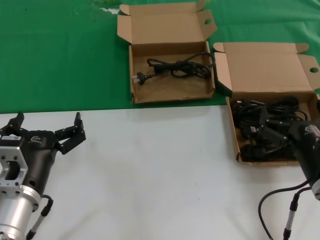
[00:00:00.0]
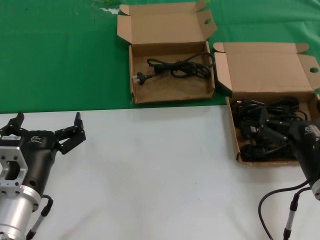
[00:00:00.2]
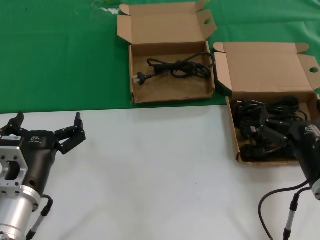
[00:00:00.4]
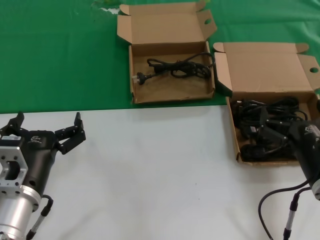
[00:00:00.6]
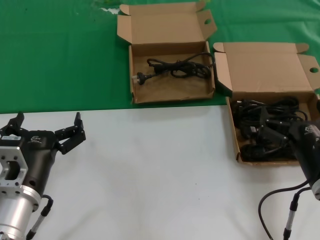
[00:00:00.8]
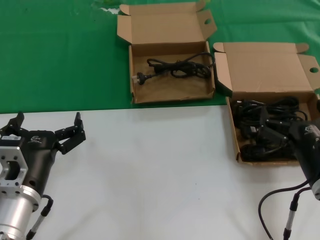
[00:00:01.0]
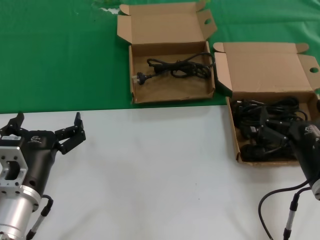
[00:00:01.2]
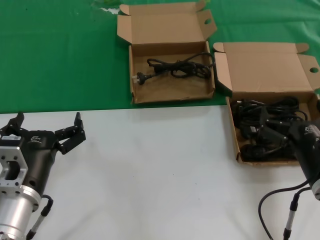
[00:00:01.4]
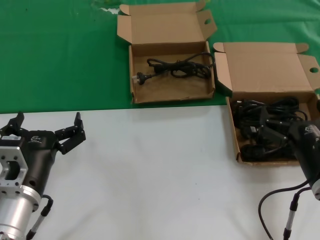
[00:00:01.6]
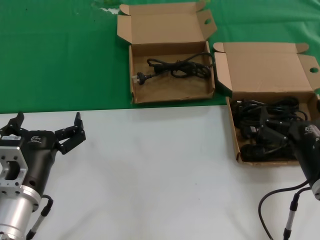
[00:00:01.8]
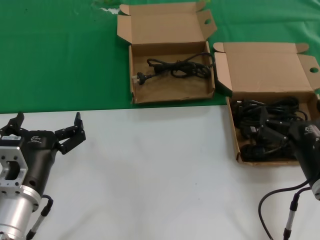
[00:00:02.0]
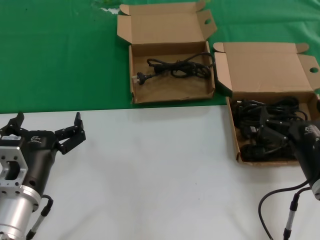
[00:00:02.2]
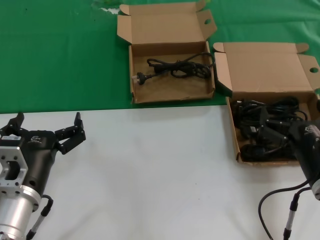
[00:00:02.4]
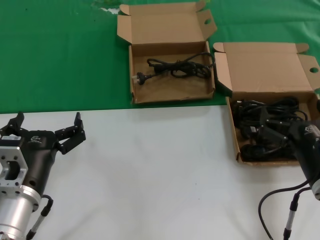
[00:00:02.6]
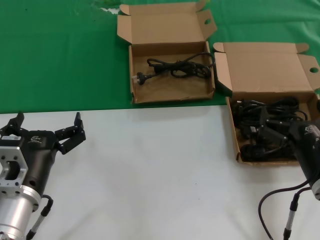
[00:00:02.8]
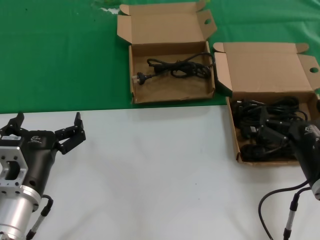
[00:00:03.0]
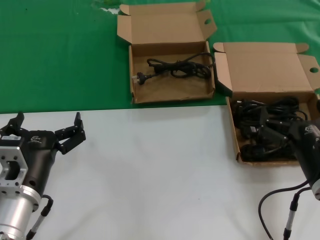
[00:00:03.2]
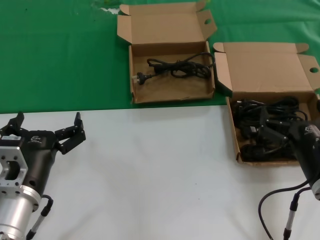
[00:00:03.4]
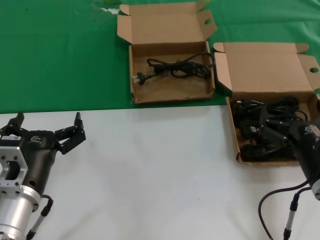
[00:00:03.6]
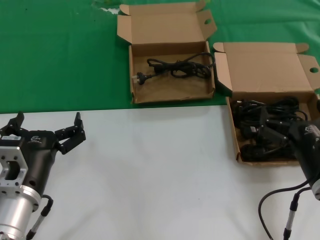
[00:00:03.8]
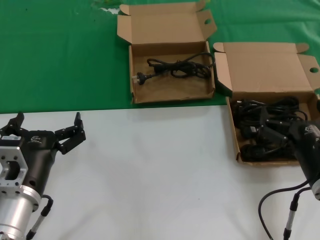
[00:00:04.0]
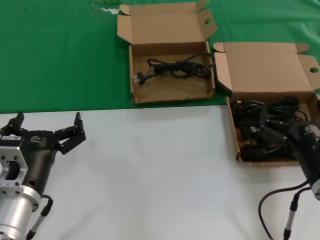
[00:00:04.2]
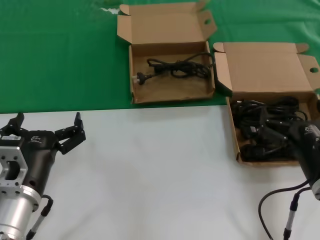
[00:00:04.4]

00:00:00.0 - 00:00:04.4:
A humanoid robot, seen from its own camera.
Task of the whole recording: take the parts from the box containing them and put them into an empty box.
00:00:00.0 - 00:00:04.4: Both hands stay about where they are.

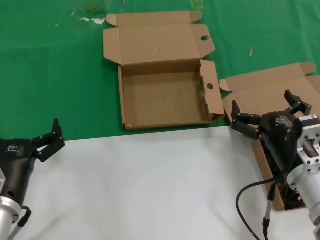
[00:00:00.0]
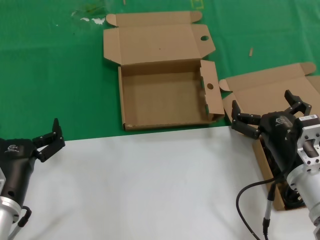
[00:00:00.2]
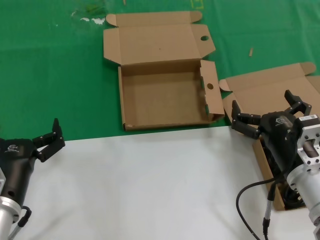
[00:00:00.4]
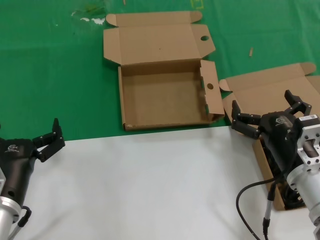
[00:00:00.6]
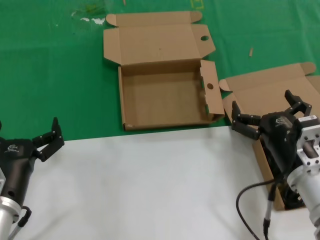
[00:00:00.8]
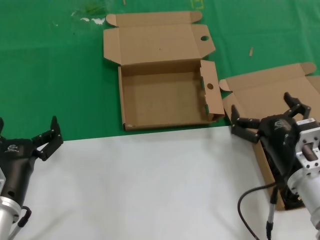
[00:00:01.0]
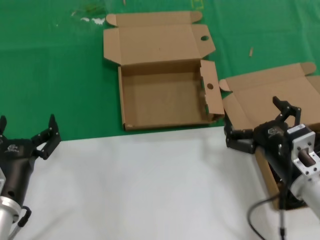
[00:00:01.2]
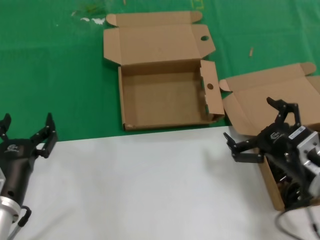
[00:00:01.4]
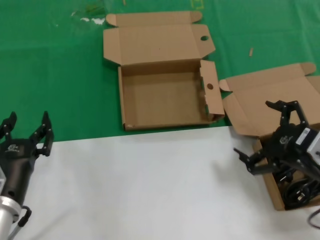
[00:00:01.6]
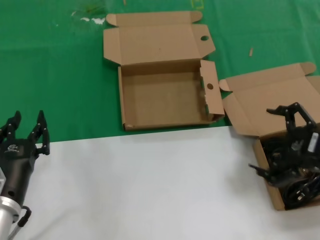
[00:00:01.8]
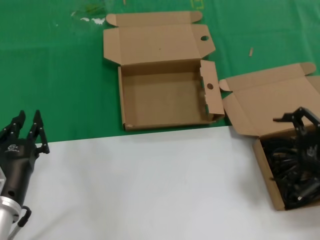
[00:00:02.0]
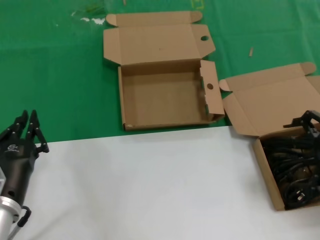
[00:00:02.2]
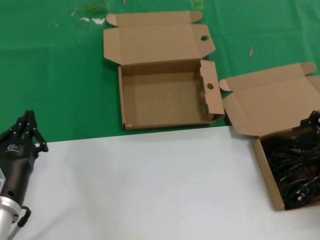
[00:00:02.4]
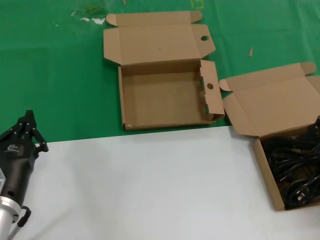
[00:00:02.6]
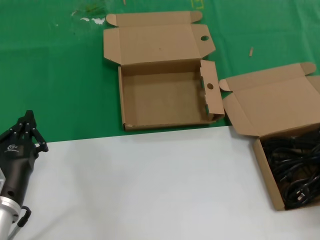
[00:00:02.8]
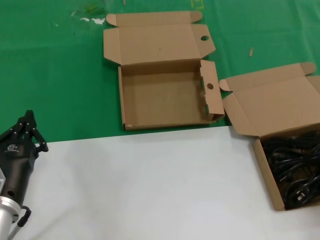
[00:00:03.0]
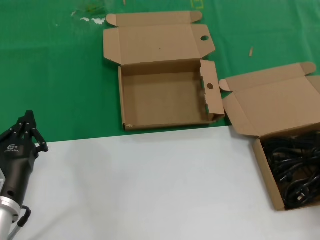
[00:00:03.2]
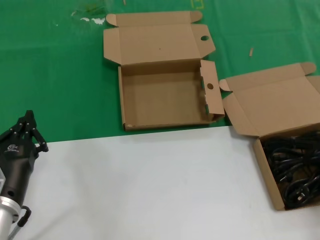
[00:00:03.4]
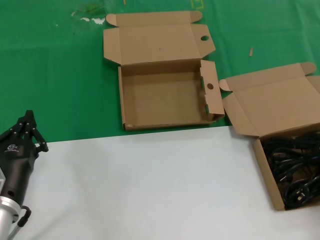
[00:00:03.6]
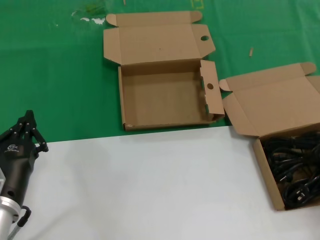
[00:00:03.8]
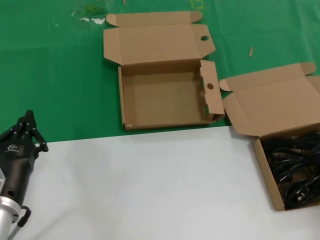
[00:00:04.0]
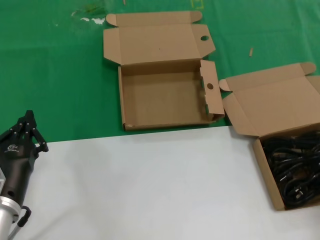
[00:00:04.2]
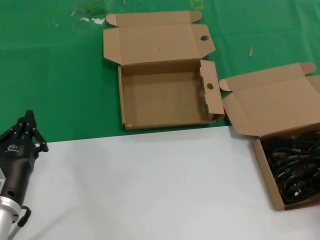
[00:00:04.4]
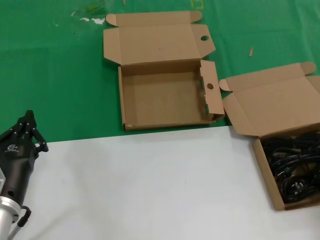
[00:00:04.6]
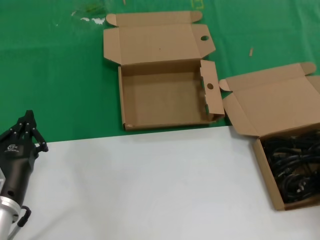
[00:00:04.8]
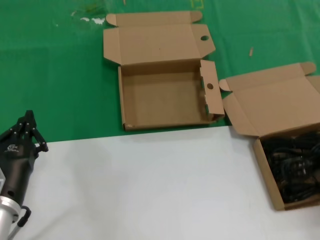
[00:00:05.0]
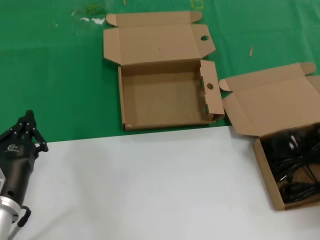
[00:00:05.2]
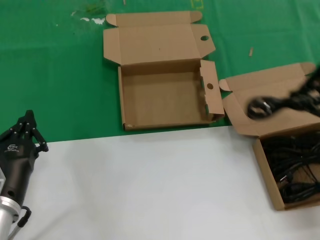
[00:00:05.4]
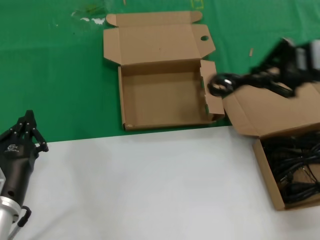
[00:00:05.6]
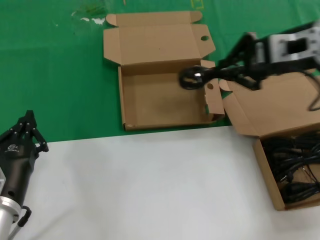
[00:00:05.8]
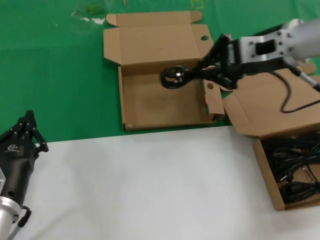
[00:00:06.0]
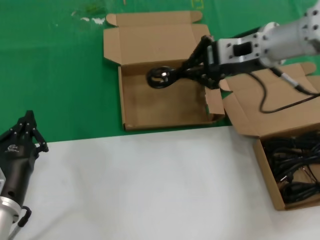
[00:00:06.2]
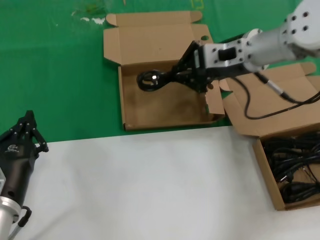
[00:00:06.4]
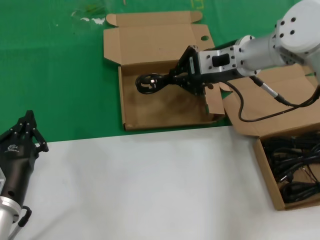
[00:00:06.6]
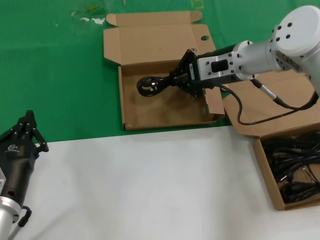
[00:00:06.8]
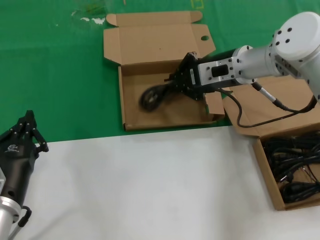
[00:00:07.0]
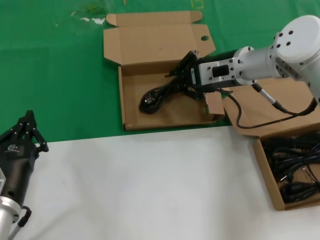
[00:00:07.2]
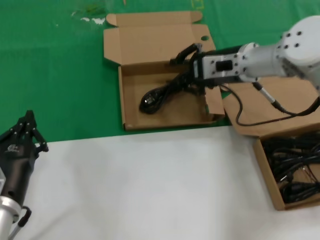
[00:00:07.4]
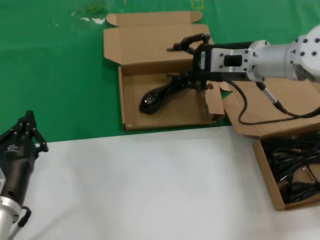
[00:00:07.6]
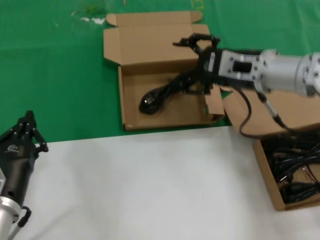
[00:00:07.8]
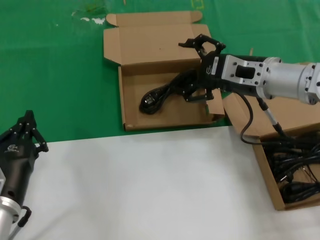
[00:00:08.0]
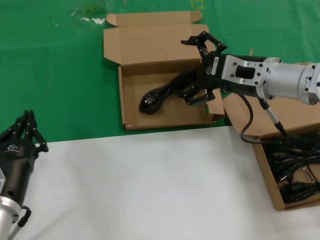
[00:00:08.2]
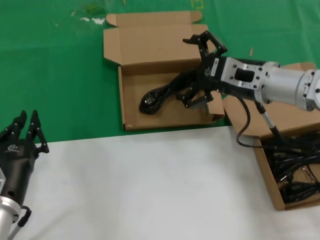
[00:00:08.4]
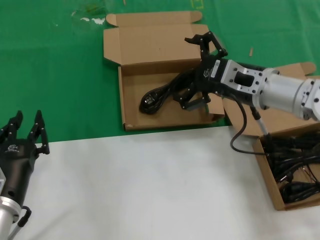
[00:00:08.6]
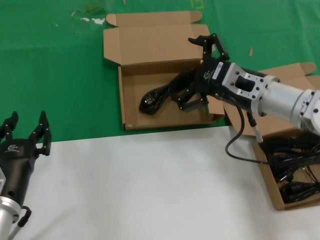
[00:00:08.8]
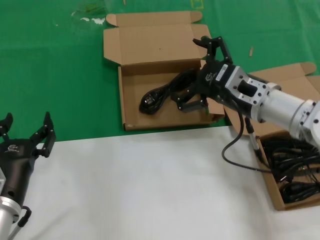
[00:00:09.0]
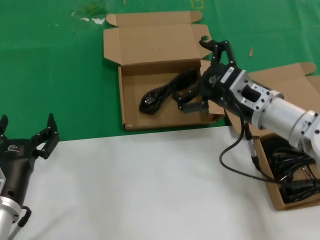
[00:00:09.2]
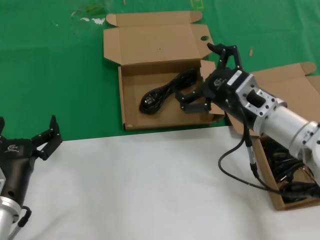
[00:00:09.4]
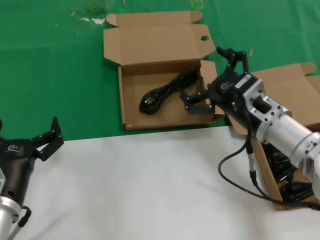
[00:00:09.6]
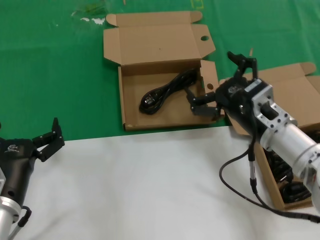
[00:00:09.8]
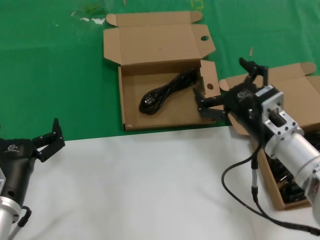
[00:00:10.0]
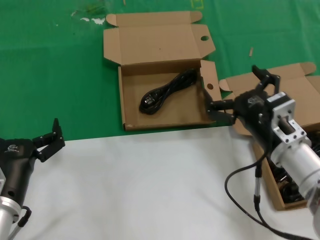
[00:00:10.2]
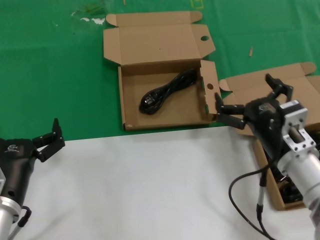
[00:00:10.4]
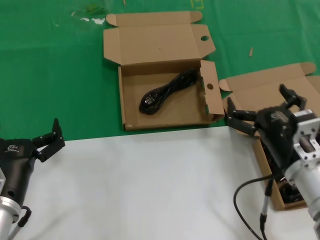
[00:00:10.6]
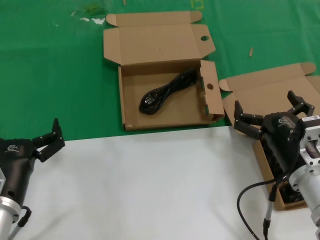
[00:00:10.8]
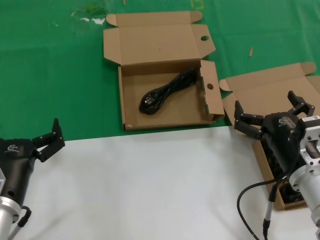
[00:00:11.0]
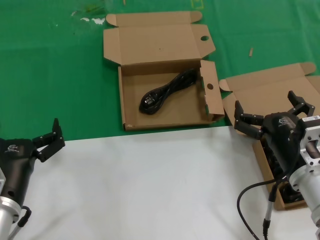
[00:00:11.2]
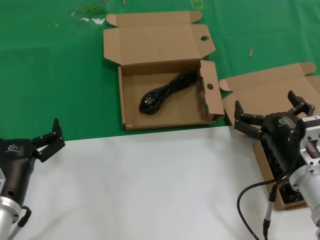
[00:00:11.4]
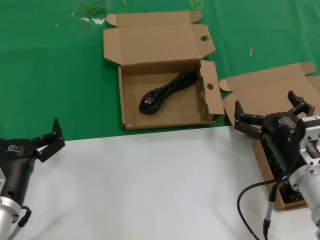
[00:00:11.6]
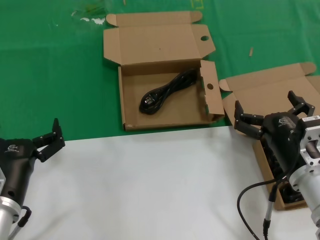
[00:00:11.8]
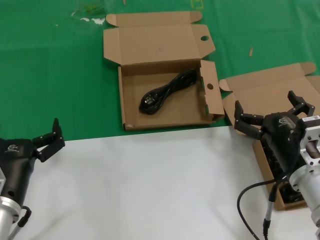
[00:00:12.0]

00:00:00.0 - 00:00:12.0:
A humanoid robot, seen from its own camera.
Task of the whole recording: take the parts from the box containing them and put them into an empty box.
Step, 00:00:00.0 - 00:00:04.4: Grasp the data cable.
Step, 00:00:04.6 - 00:00:07.4: Place the data cable in the another box.
00:00:00.0 - 00:00:01.6: The right hand travels to the right and upward by approximately 10 cm.
00:00:01.6 - 00:00:03.0: The right hand moves to the right and upward, roughly 15 cm.
00:00:04.4 - 00:00:06.0: The right hand goes about 25 cm to the left, upward and forward.
00:00:06.0 - 00:00:07.6: The right hand shifts about 5 cm downward.
00:00:07.6 - 00:00:09.0: The right hand is displaced backward and downward by approximately 10 cm.
00:00:09.0 - 00:00:10.4: The right hand shifts some 15 cm backward and downward.
00:00:10.4 - 00:00:12.0: The hands make only small movements.

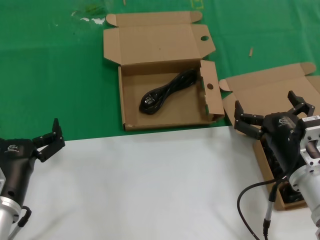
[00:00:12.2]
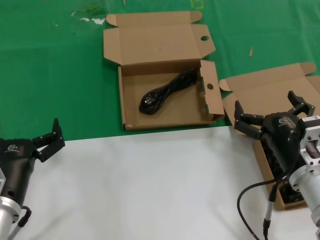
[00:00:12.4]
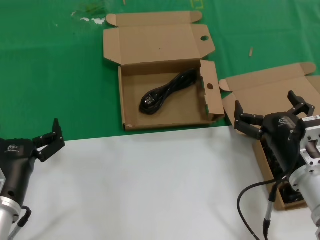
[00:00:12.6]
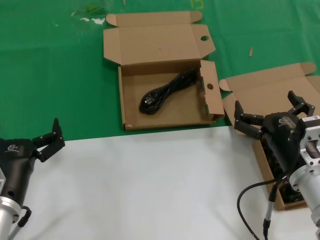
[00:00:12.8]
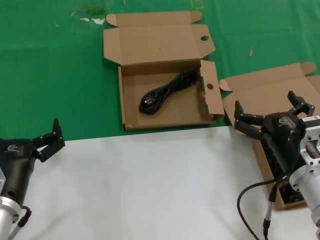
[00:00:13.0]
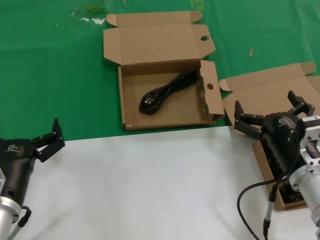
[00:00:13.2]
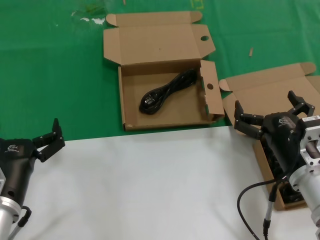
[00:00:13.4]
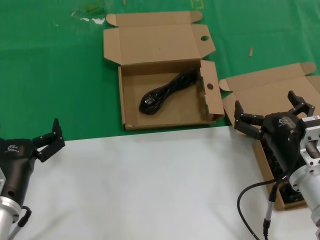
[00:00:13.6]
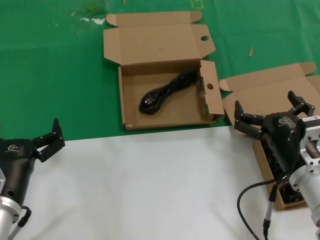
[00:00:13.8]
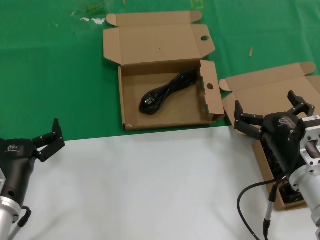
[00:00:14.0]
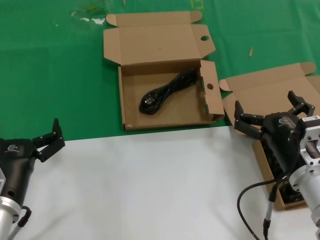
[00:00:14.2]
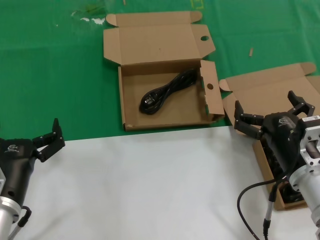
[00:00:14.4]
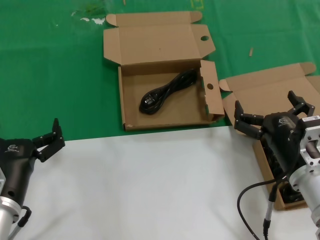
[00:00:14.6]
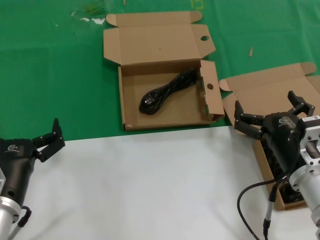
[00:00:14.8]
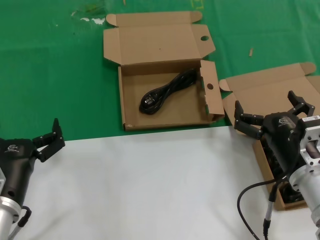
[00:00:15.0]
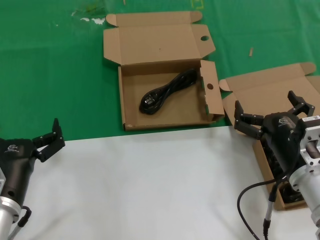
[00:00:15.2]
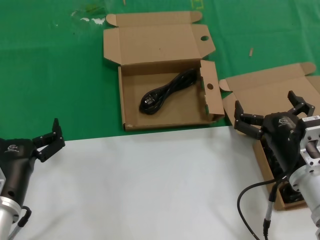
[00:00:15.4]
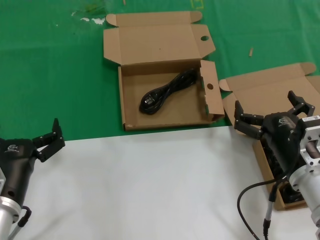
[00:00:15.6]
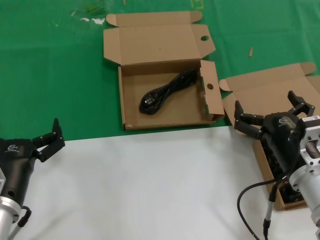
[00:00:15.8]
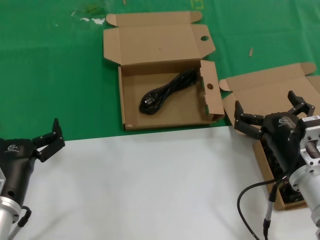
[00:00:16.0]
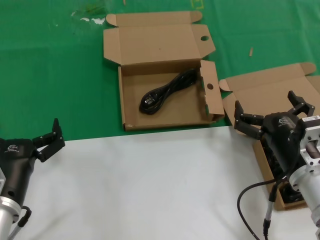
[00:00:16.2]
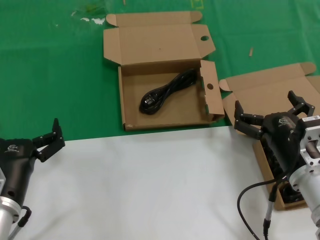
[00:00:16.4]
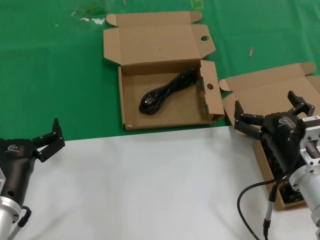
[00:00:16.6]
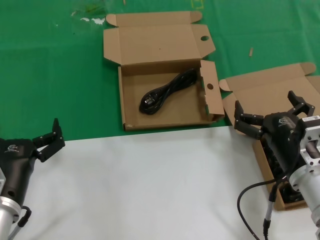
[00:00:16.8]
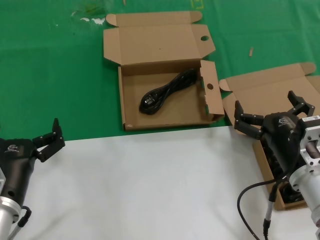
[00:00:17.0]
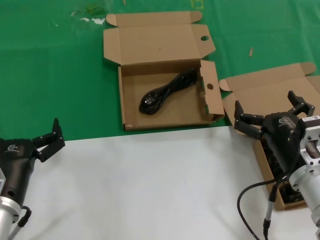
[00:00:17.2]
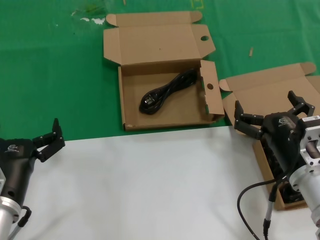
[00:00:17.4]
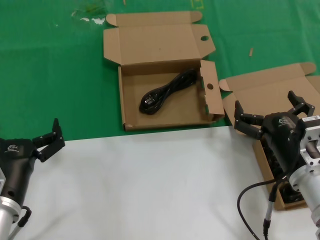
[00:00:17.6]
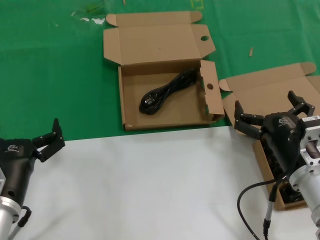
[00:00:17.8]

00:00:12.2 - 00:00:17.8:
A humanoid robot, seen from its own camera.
Task of the whole recording: take the parts from the box containing them and put them into an empty box.
00:00:12.2 - 00:00:17.8: Neither hand changes place.
